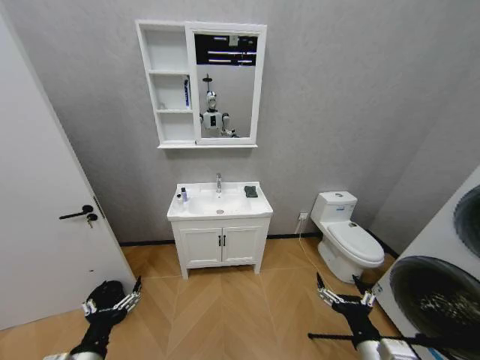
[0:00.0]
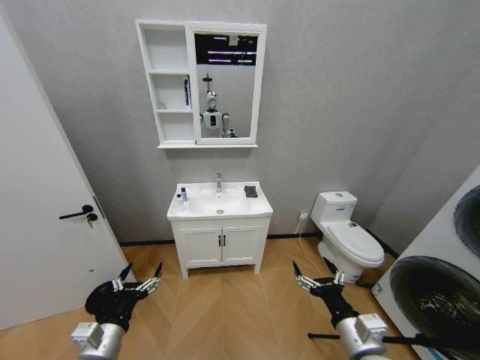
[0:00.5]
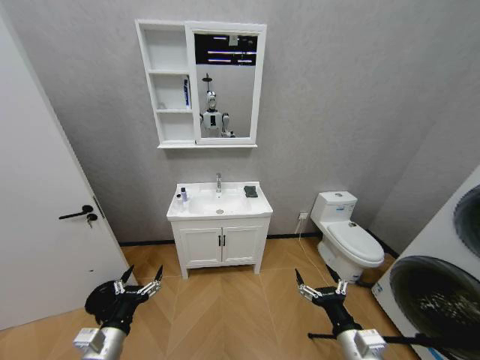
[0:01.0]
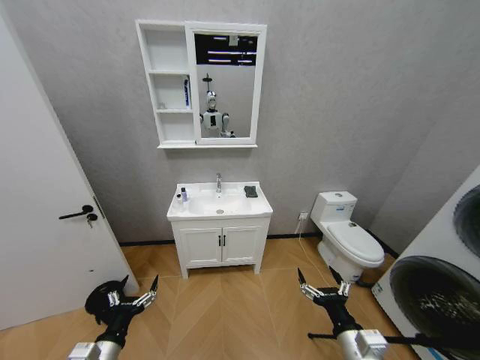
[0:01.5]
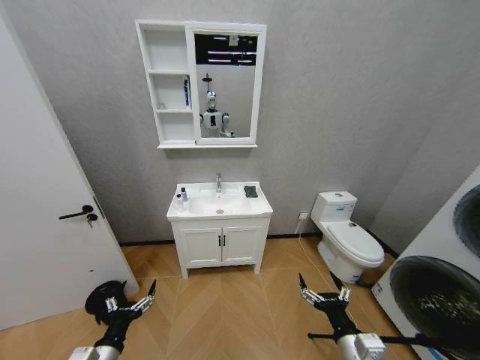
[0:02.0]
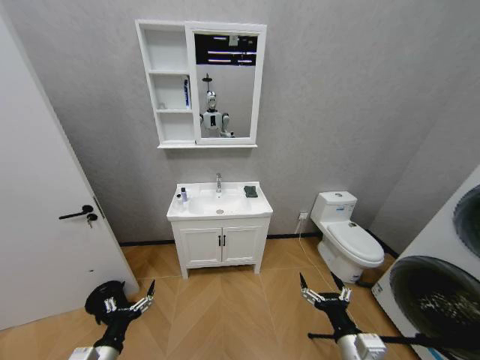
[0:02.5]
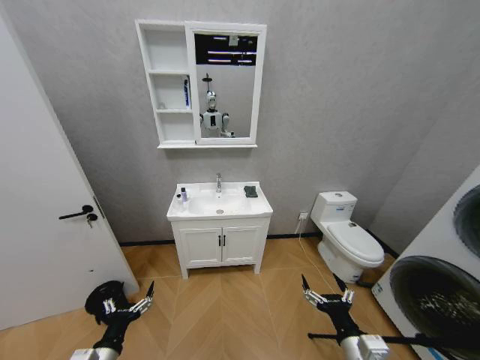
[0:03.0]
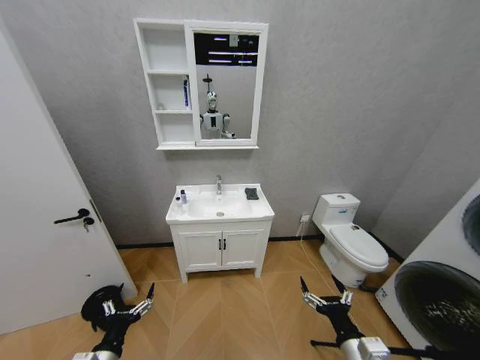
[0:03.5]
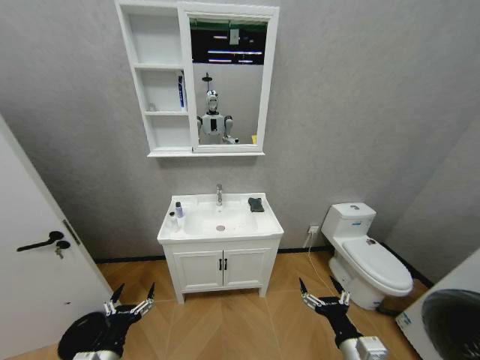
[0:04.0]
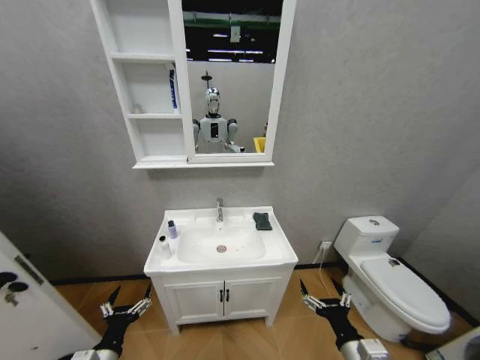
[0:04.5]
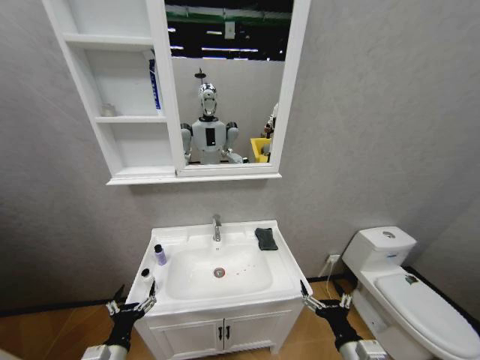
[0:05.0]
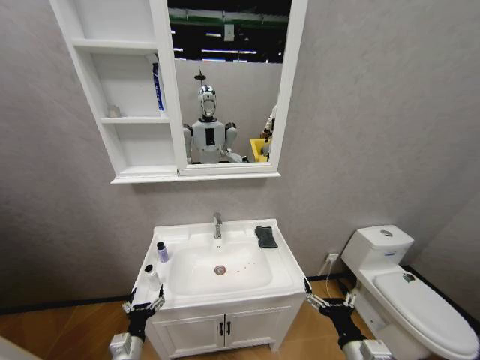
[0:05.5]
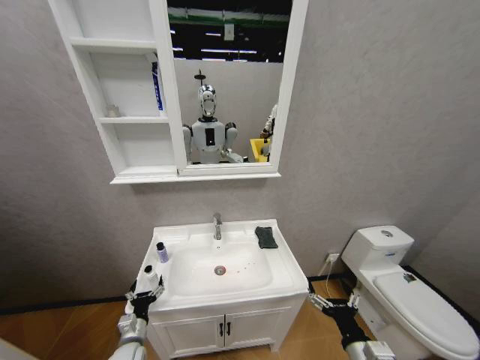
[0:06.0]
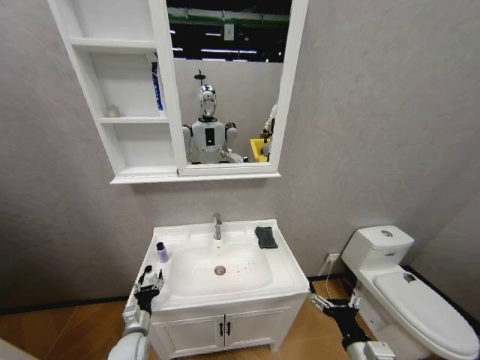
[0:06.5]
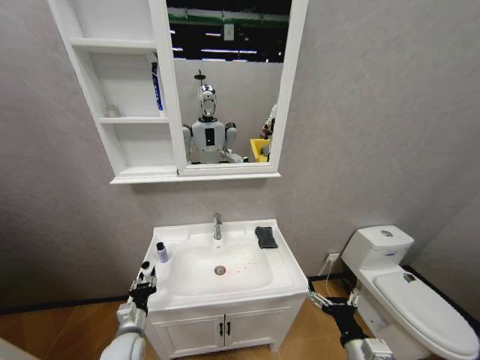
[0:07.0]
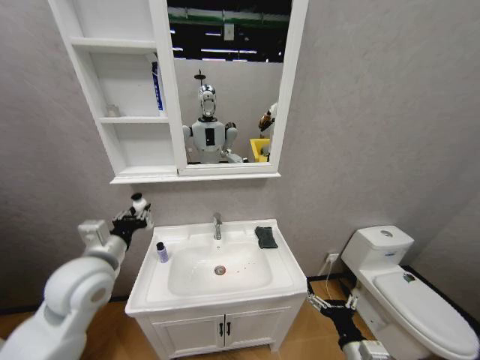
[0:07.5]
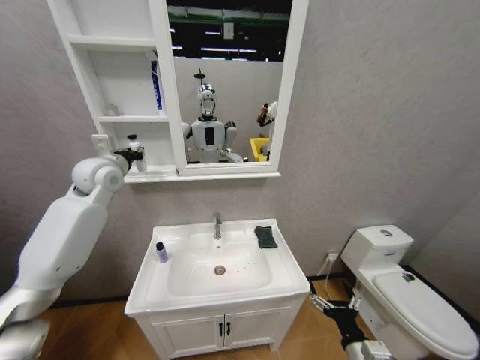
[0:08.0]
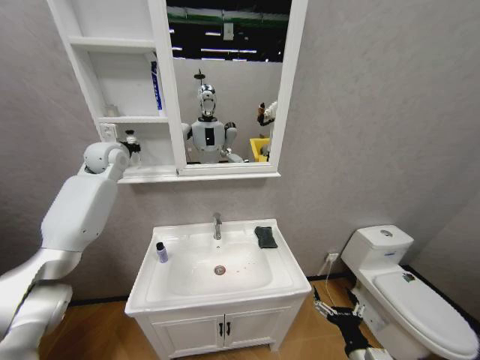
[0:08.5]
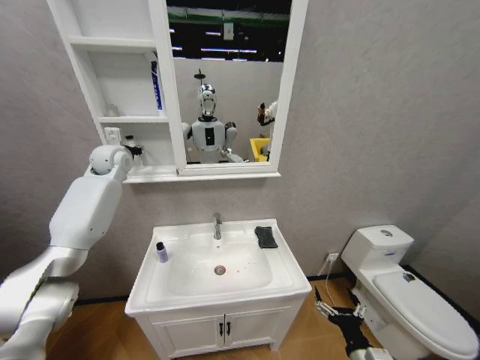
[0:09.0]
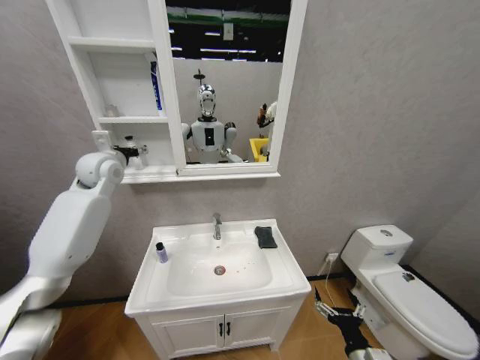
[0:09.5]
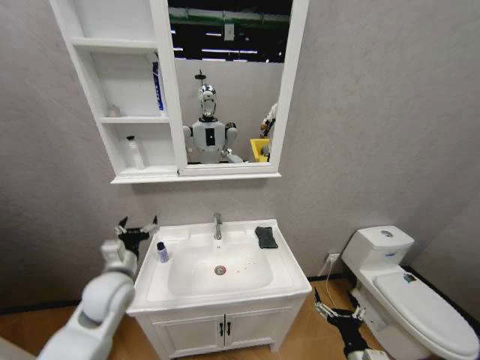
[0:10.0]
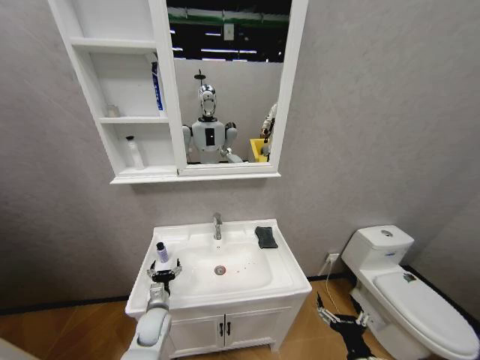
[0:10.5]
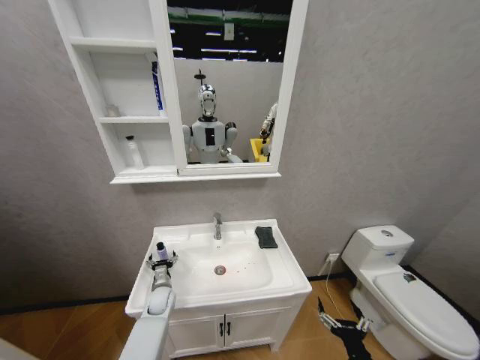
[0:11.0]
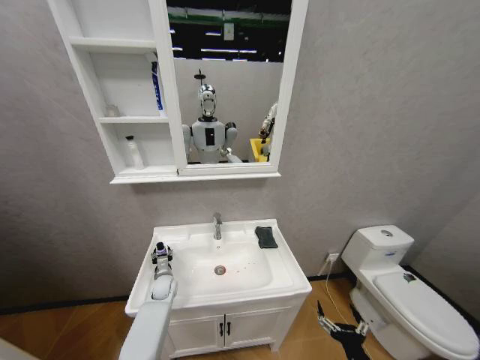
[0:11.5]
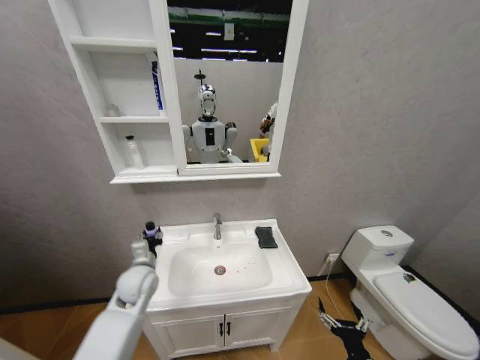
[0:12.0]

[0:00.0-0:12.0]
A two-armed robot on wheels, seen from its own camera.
Task of the whole recording: Move facial cleanser and shampoo from washbasin to cabinet, then wipe washbasin with towel.
0:04.0 to 0:06.0: The left gripper shifts some 15 cm forward and downward.
0:06.0 to 0:08.0: The left gripper is displaced upward and forward by approximately 50 cm, and closes up.
0:08.0 to 0:10.0: The left gripper heads downward and backward, covering roughly 30 cm, and opens up.
0:10.0 to 0:12.0: The left gripper goes downward and returns, roughly 25 cm each way, and closes.

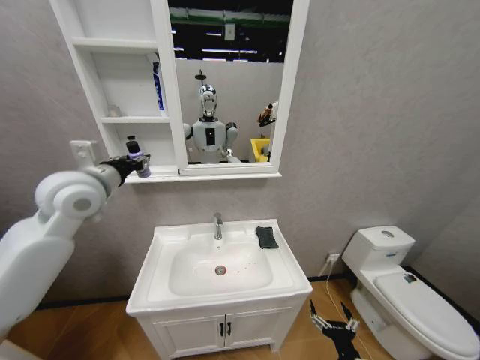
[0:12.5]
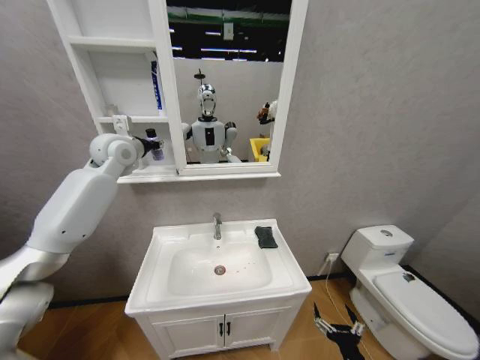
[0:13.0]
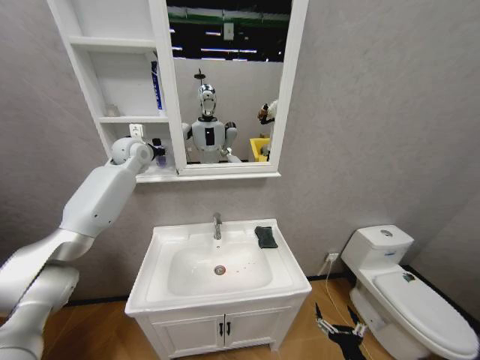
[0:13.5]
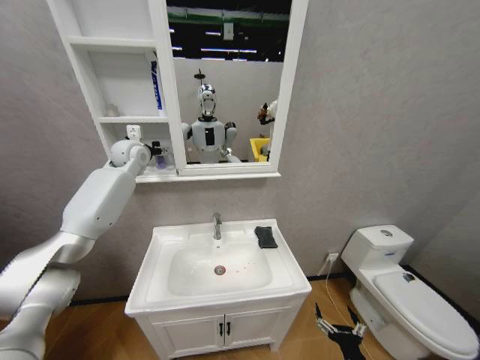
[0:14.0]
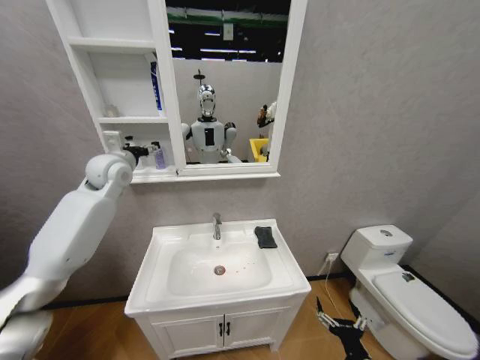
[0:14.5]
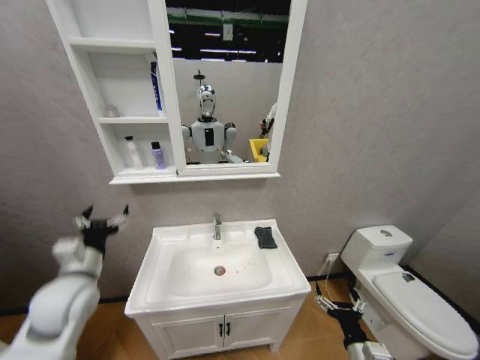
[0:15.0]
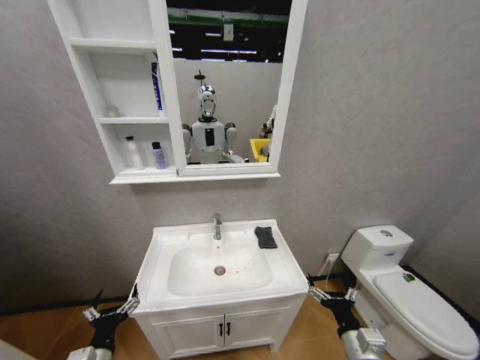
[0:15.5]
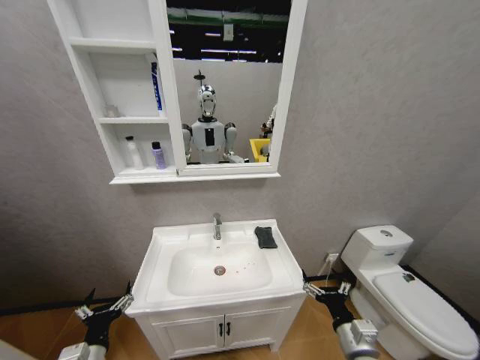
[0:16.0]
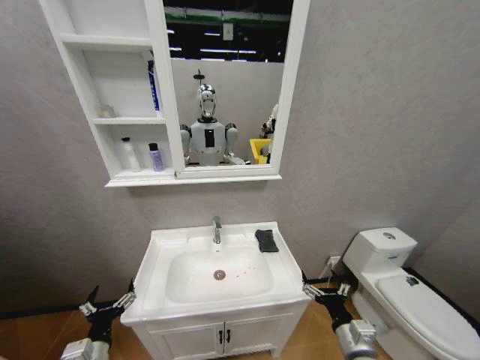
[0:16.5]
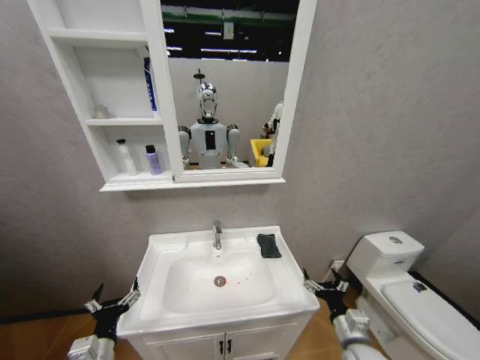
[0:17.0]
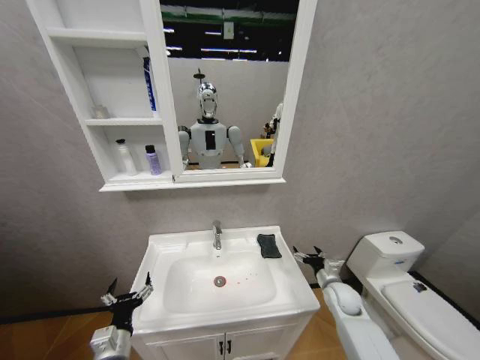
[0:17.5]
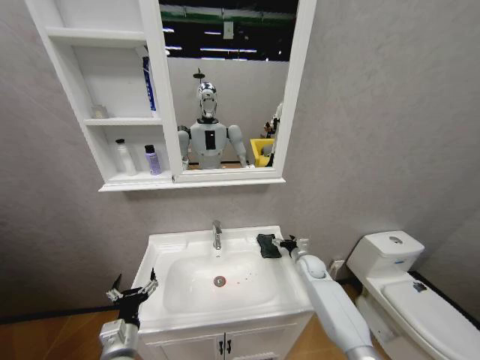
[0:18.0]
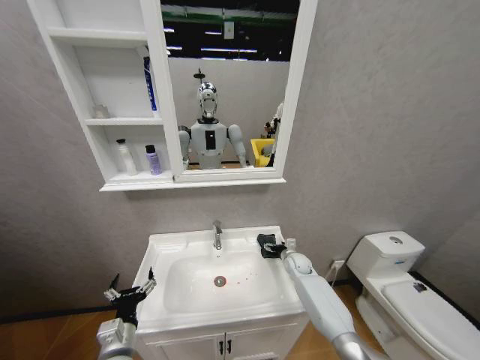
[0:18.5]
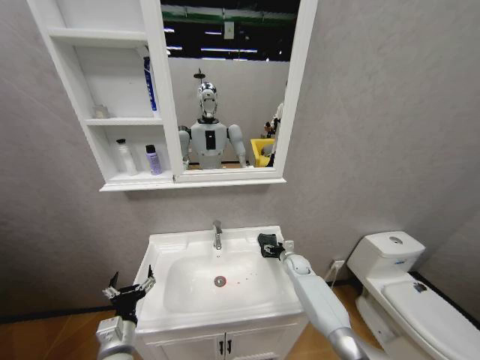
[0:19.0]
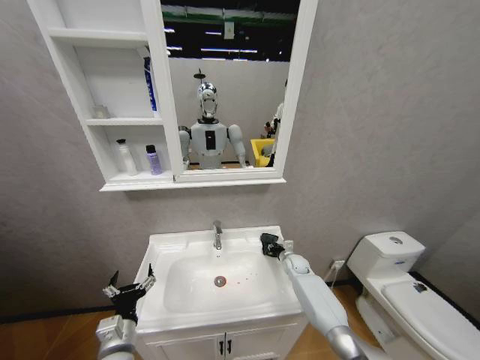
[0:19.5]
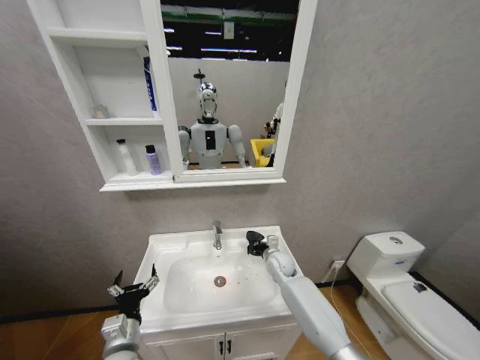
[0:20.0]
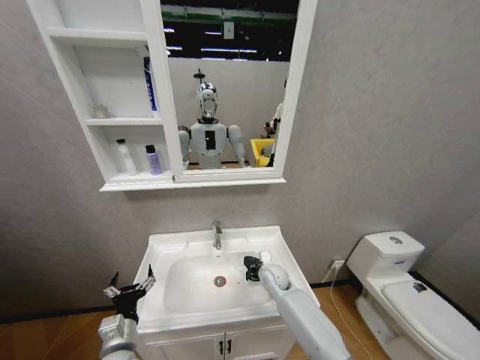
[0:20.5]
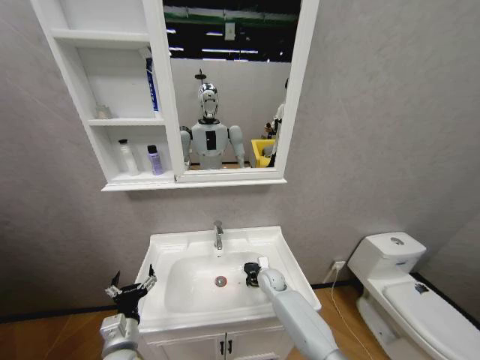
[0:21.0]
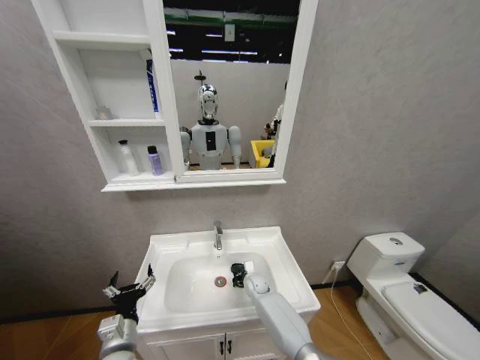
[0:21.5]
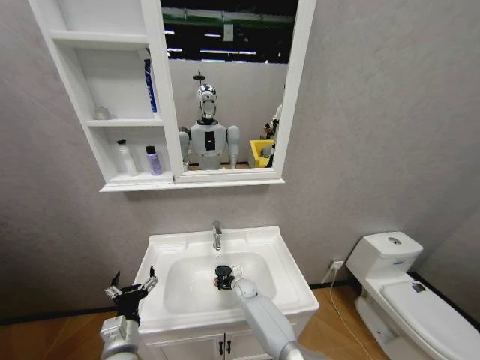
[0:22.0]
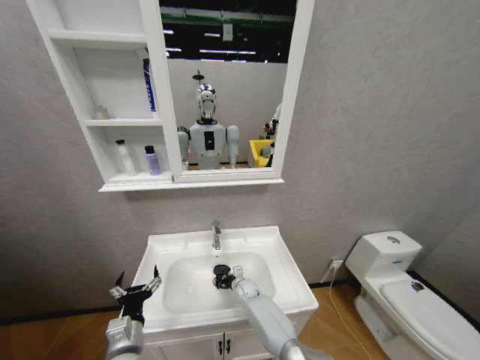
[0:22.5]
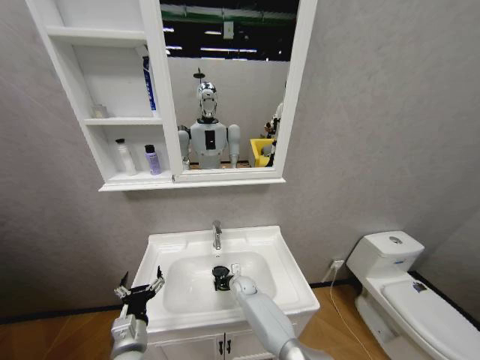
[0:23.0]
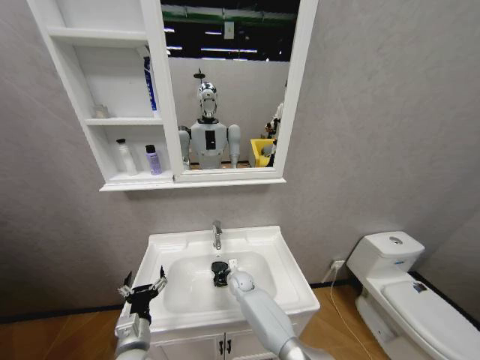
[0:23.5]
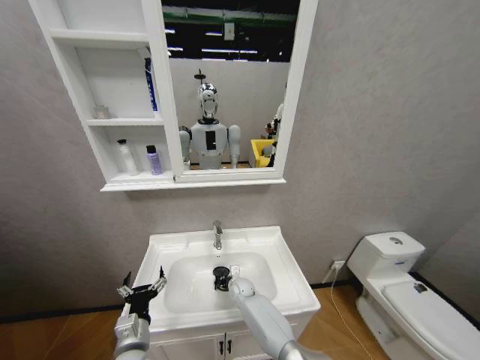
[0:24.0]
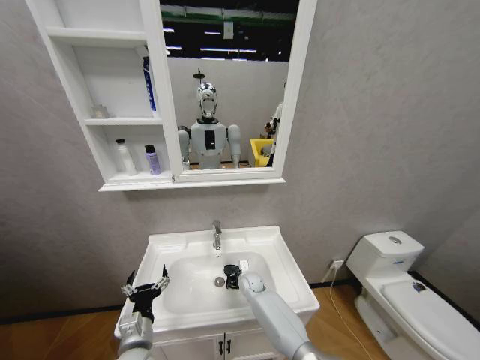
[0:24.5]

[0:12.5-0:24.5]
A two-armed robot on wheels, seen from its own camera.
Task of the whole recording: Move facial cleanser and shampoo from washbasin to cabinet, then wipe washbasin with towel.
0:12.5 to 0:14.5: The left gripper is displaced forward by about 10 cm, and opens its fingers.
0:14.5 to 0:16.5: The right gripper goes approximately 5 cm upward; the left gripper moves downward and backward, roughly 50 cm.
0:16.5 to 0:18.5: The right gripper travels forward by roughly 35 cm; the left gripper shifts roughly 5 cm to the right.
0:18.5 to 0:20.5: The right gripper is displaced to the left and backward by about 15 cm, and closes its fingers.
0:20.5 to 0:22.5: The right gripper heads downward and to the left, covering roughly 15 cm.
0:22.5 to 0:24.5: The right gripper travels upward by approximately 5 cm.

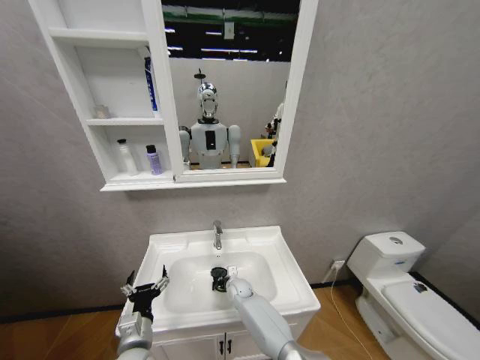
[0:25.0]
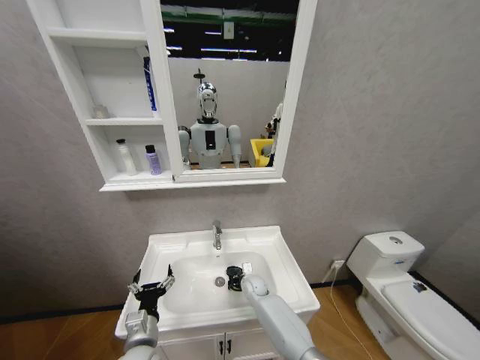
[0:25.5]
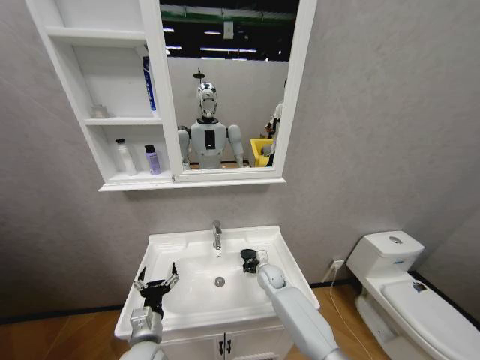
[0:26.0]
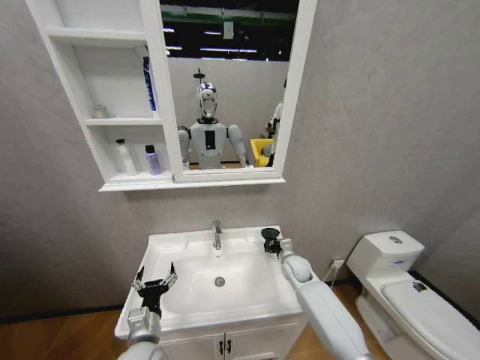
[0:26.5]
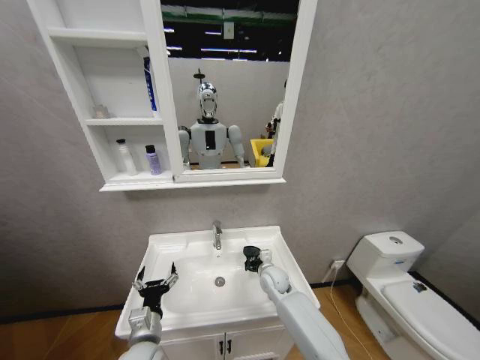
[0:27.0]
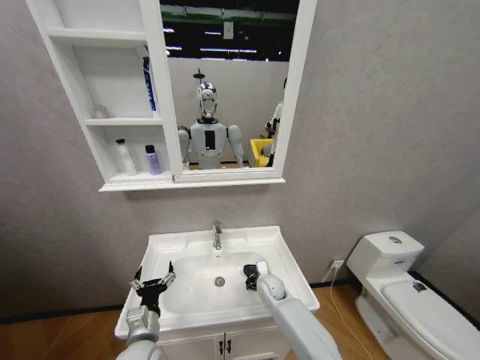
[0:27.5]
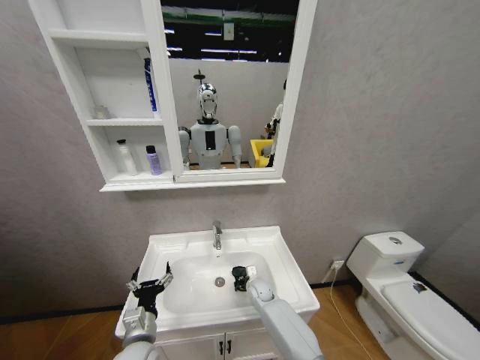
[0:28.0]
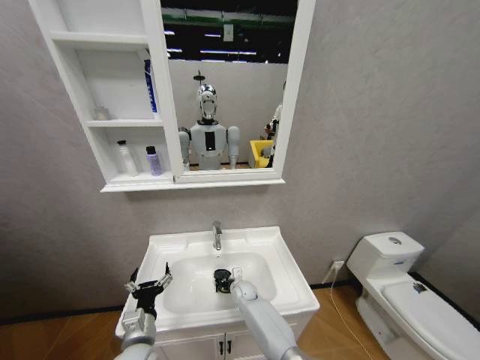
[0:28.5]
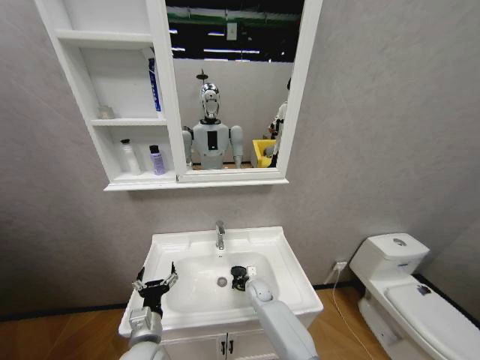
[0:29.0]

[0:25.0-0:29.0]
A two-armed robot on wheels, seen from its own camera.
Task of the whole recording: Move facial cleanser and shampoo from washbasin to cabinet, then wipe washbasin with towel.
0:25.0 to 0:27.0: The right gripper heads to the right and upward, covering some 15 cm.
0:27.0 to 0:29.0: The right gripper is displaced downward by approximately 10 cm.
